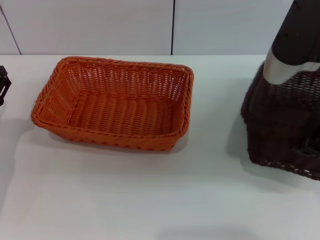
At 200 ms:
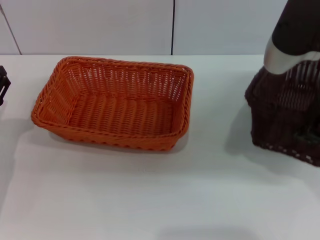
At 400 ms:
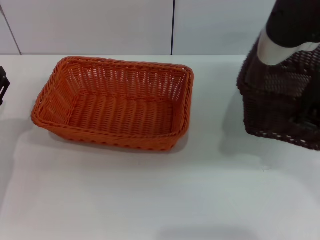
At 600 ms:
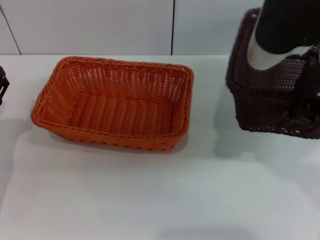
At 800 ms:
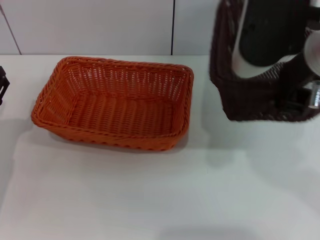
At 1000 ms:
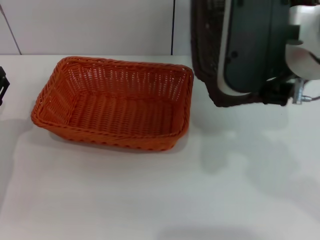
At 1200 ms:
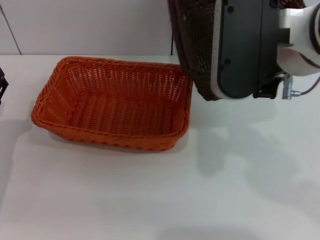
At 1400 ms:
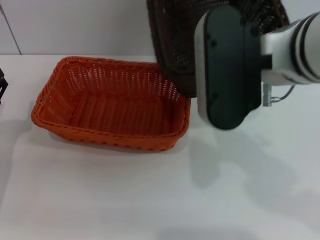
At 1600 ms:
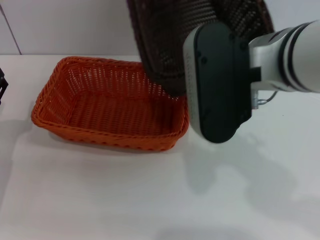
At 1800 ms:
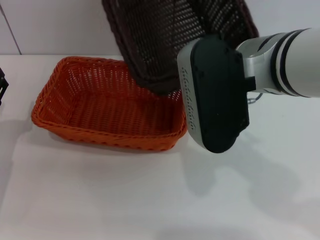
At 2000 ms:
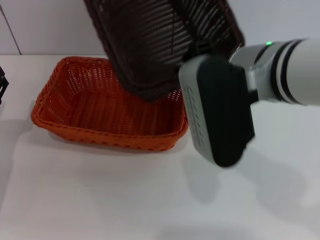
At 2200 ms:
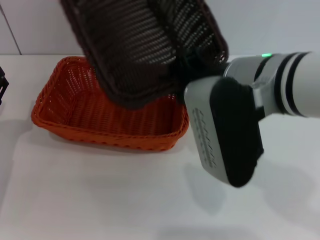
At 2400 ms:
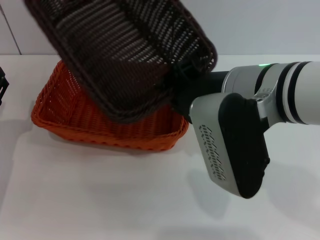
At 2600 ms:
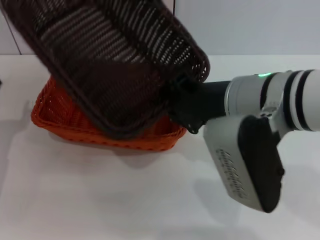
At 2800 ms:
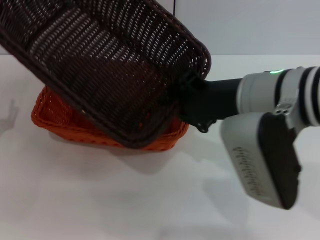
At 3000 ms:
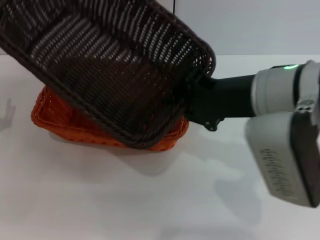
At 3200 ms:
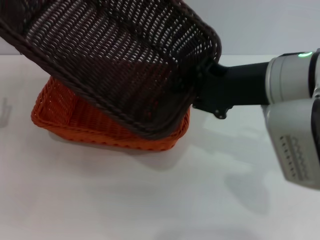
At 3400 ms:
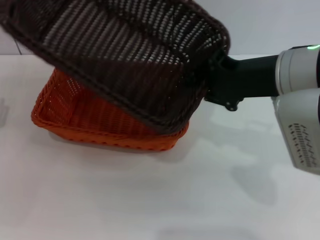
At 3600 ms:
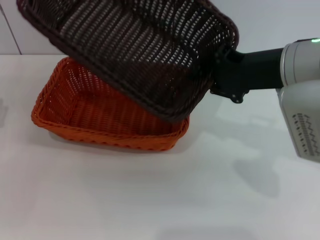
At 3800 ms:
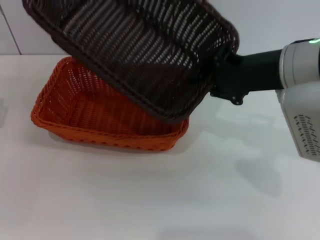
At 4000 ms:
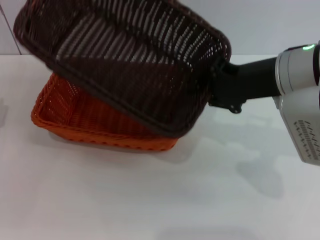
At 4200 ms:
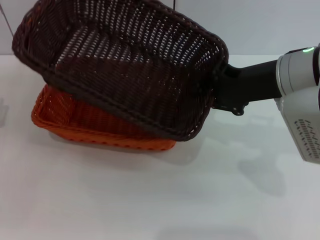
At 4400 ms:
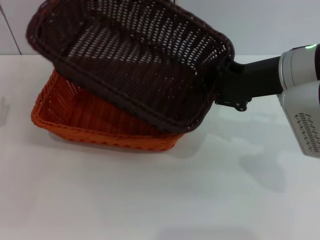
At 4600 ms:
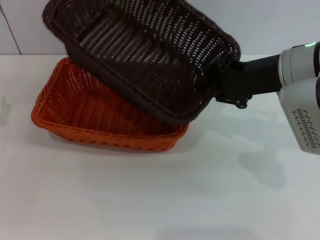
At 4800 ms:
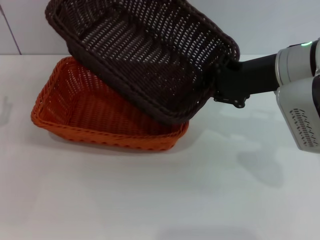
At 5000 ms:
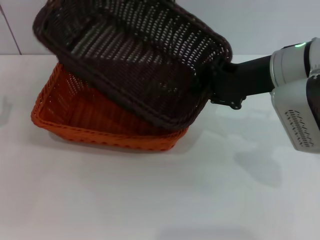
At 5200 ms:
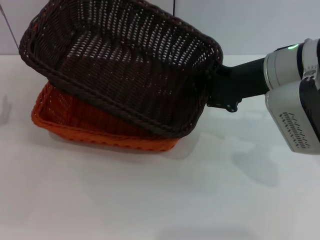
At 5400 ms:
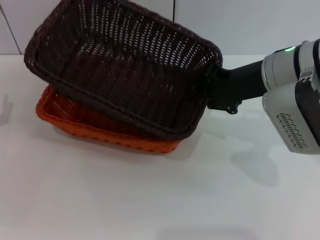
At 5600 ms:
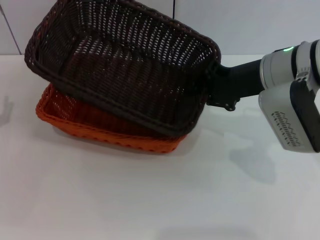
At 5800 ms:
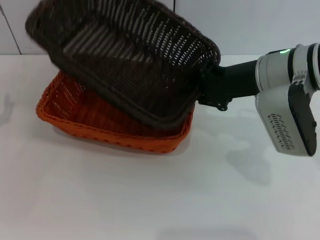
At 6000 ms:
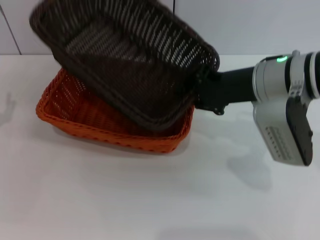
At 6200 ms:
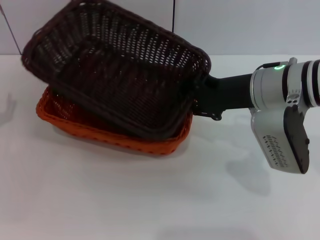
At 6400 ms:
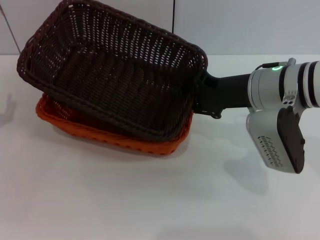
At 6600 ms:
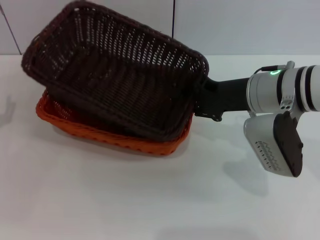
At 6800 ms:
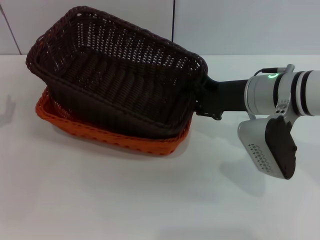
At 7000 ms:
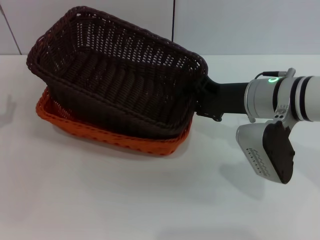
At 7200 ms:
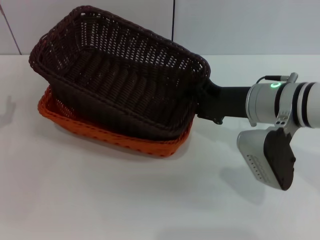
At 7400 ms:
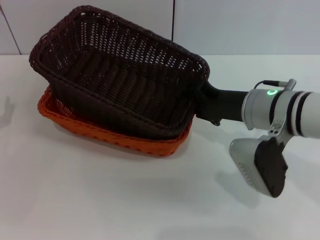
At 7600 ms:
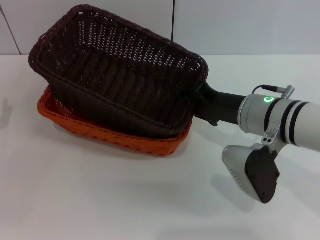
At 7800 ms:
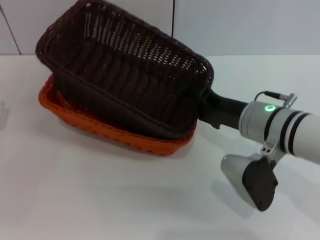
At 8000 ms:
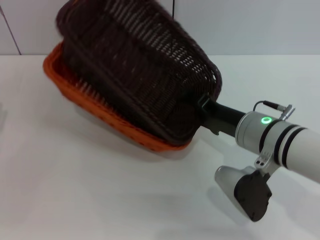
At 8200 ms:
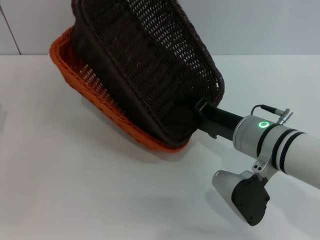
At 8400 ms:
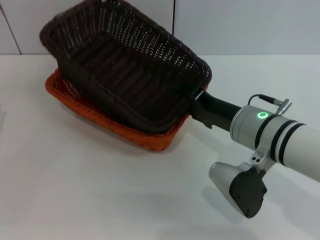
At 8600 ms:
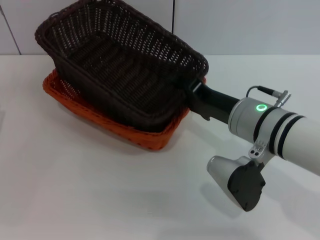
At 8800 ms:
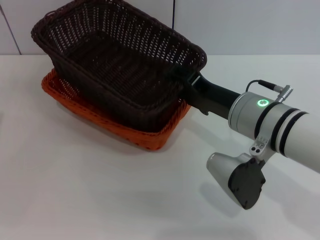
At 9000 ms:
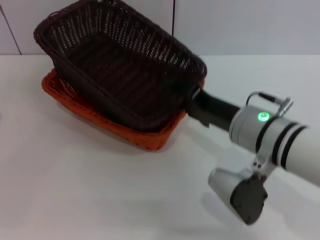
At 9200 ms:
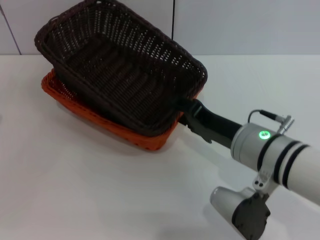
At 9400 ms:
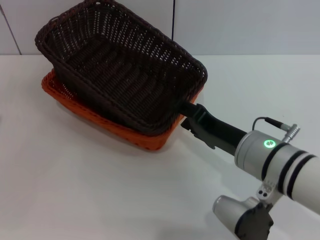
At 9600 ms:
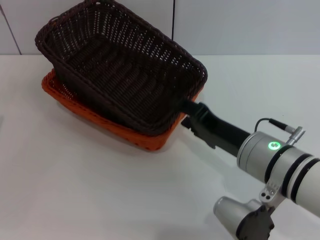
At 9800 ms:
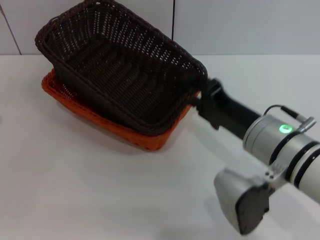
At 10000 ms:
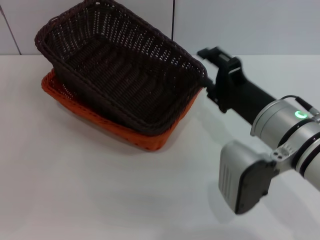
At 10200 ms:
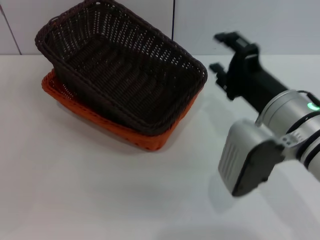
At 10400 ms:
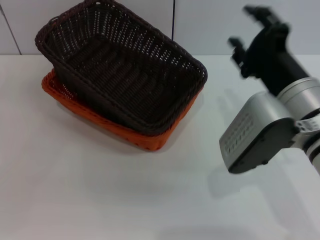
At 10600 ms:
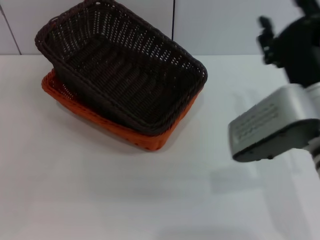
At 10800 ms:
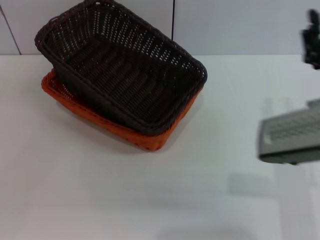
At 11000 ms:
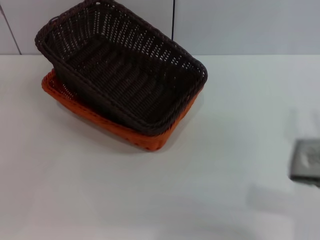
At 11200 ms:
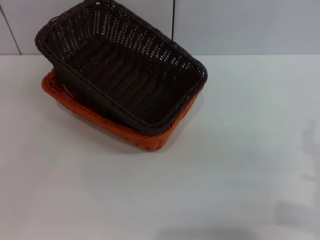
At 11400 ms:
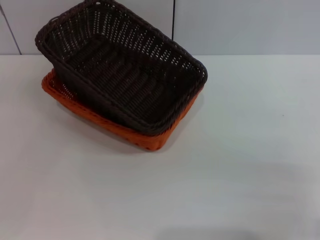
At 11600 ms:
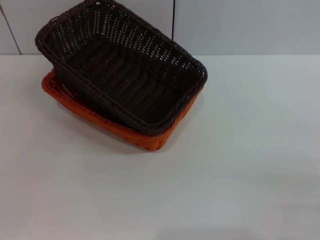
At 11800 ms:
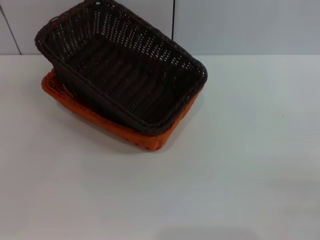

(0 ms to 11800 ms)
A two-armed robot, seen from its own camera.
Step, 0 ms - 9200 ms: Place the dark basket on the light basket with the right gripper.
0 ms - 1400 ms: The right gripper moves to the left, some 10 cm.
1400 ms - 3000 ms: The right gripper moves approximately 5 cm.
3000 ms - 4400 ms: The right gripper moves forward, about 5 cm.
4400 ms - 6000 ms: The grippers make only small movements.
6000 ms - 7400 ms: The right gripper opens its fingers.
7400 ms - 8800 ms: The right gripper opens.
8800 ms - 10400 ms: The right gripper moves about 5 cm.
10400 ms - 11800 ms: The right gripper moves to the right, downward and backward, some 25 cm.
